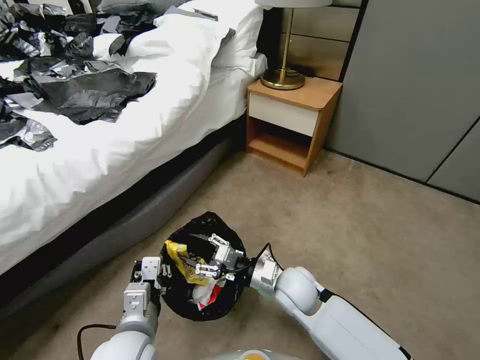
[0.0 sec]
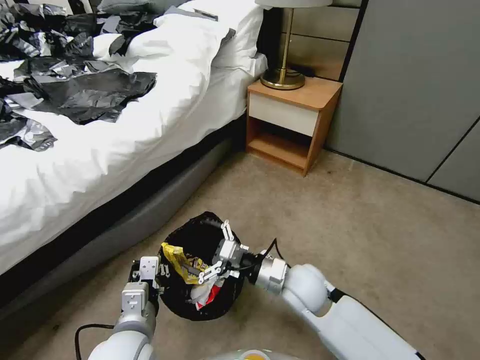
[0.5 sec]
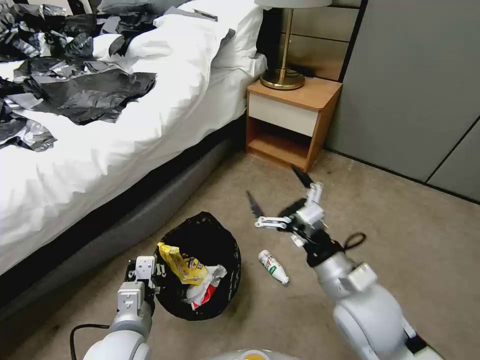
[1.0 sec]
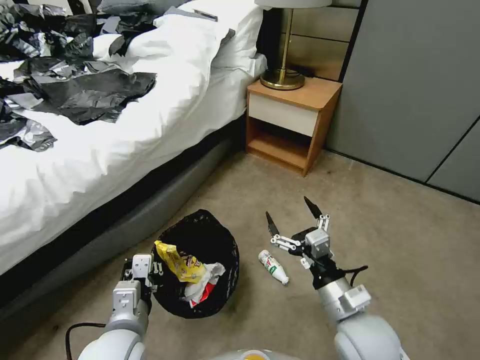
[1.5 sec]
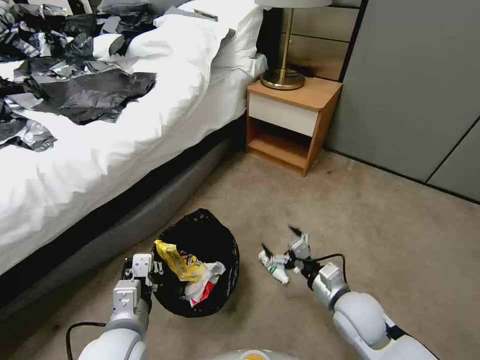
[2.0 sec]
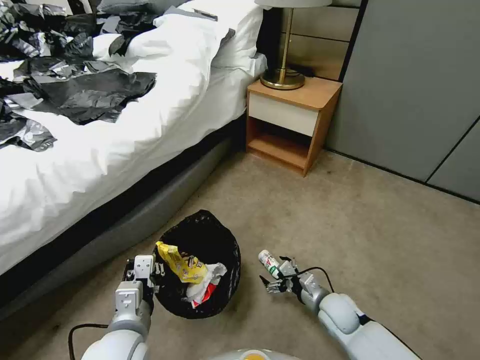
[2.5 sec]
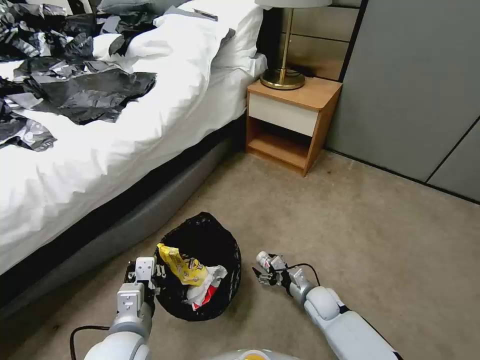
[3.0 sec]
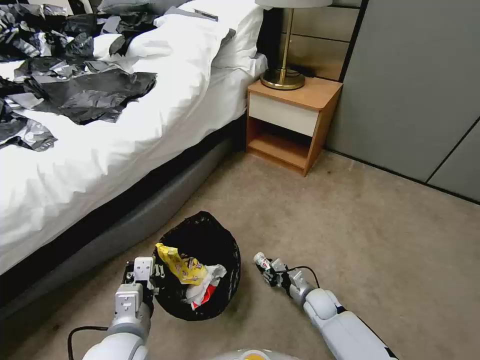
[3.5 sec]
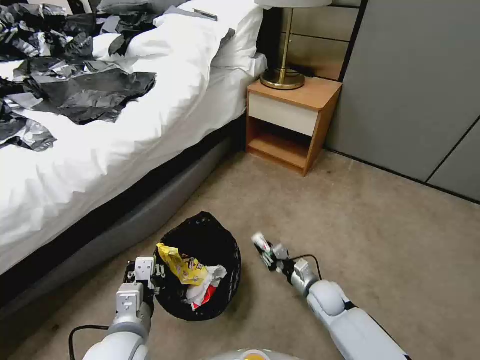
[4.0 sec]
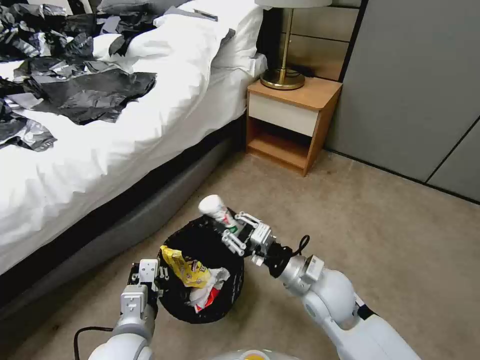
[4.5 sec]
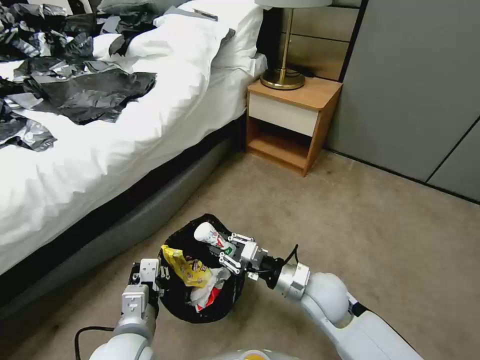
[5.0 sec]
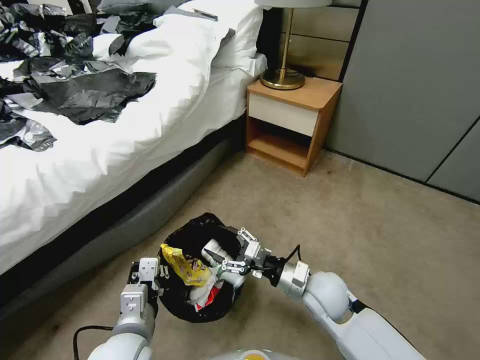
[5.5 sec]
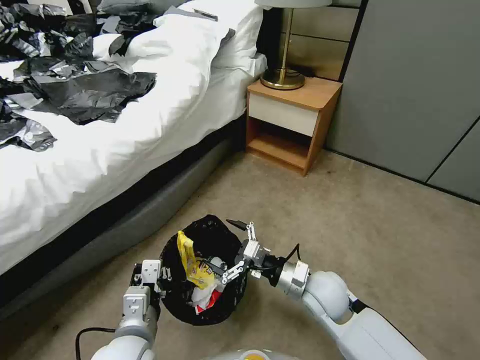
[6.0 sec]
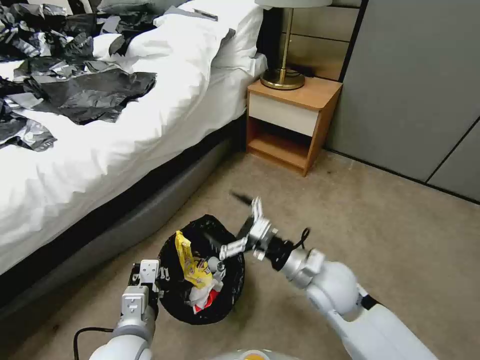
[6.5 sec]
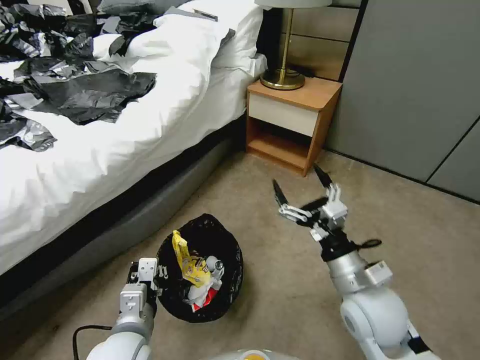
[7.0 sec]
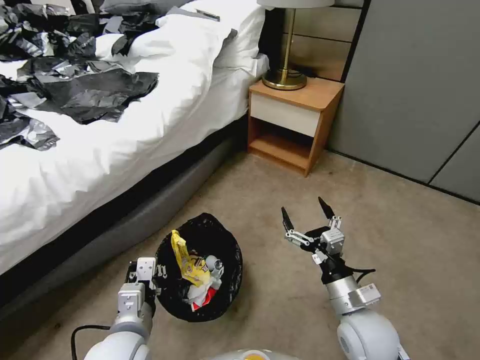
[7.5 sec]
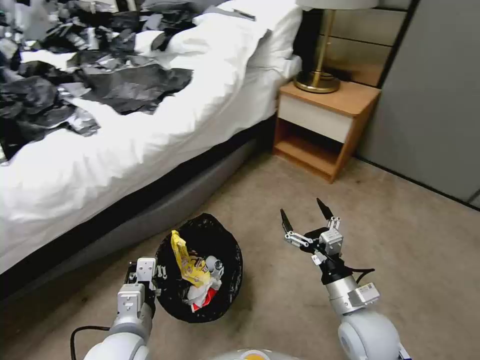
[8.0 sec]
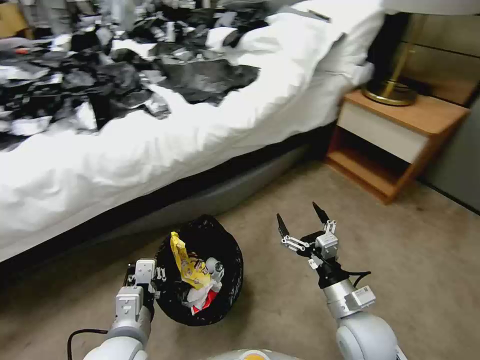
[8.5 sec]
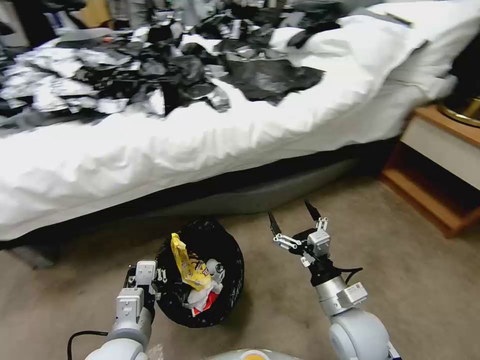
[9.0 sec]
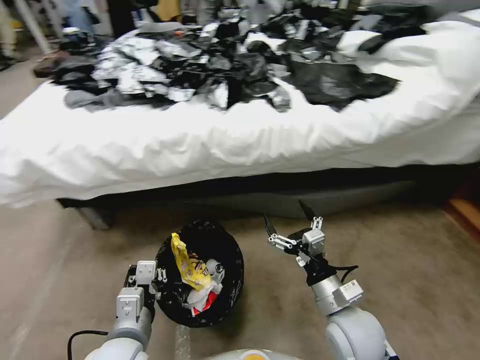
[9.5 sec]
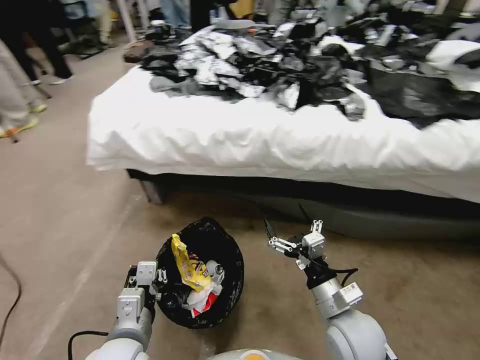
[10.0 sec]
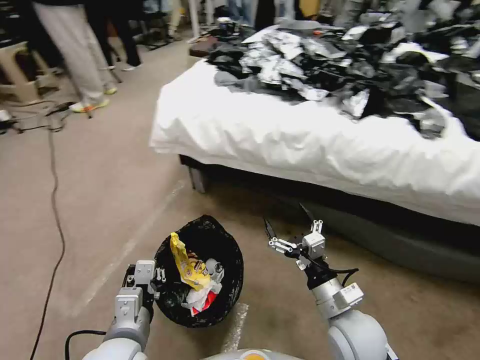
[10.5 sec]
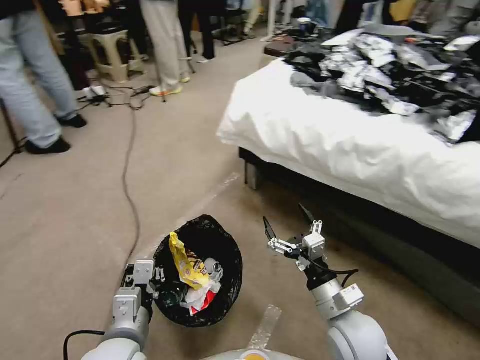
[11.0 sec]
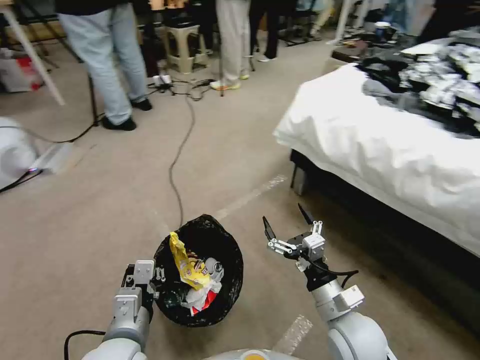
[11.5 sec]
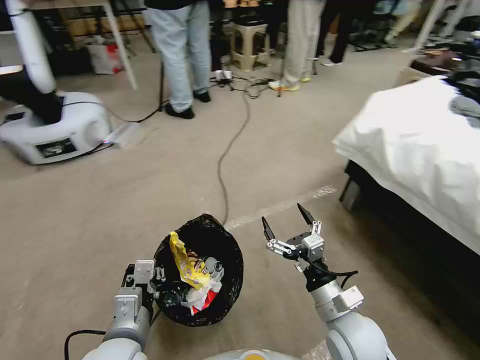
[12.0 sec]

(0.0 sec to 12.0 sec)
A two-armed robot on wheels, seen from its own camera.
Task of the whole recording: Pick up the trash bin, then pick up the garbage from the floor and place it into the trash bin.
0.0 sec - 2.0 sec: The right gripper heads to the right and backward, covering some 15 cm, travels upward and back again, roughly 15 cm each way, and opens.
2.0 sec - 4.0 sec: The right gripper goes approximately 15 cm downward and forward, and closes up.
4.0 sec - 6.0 sec: The right gripper shifts about 15 cm upward, and opens up.
6.0 sec - 8.0 sec: The right gripper moves backward and to the right, roughly 10 cm, and reaches approximately 10 cm upward, then returns.

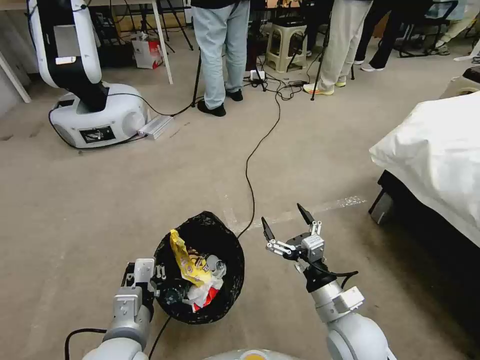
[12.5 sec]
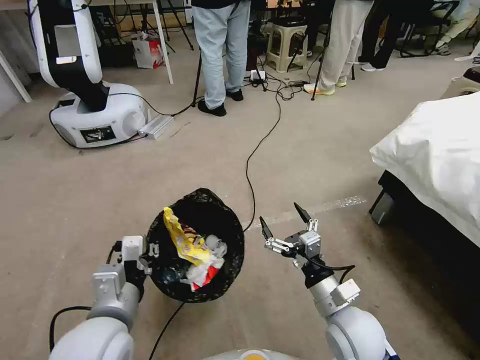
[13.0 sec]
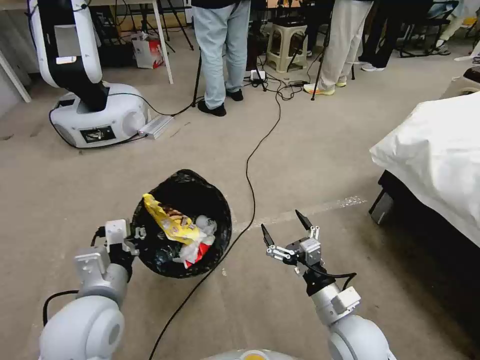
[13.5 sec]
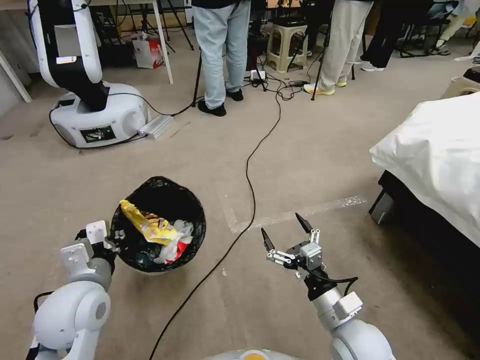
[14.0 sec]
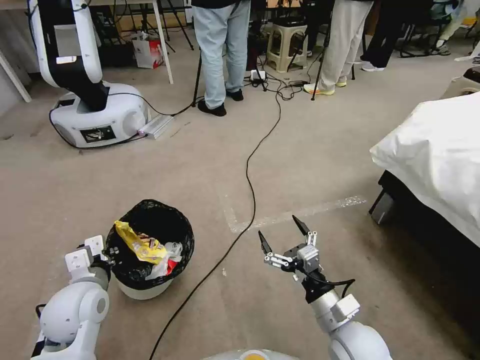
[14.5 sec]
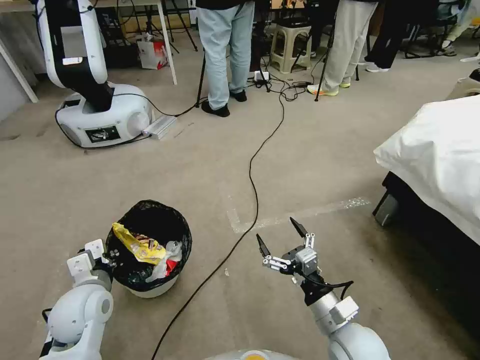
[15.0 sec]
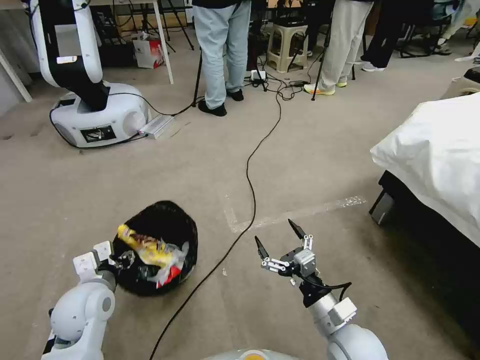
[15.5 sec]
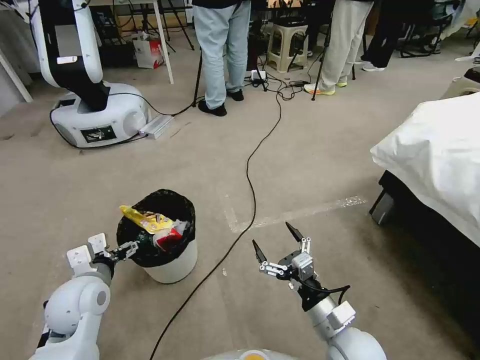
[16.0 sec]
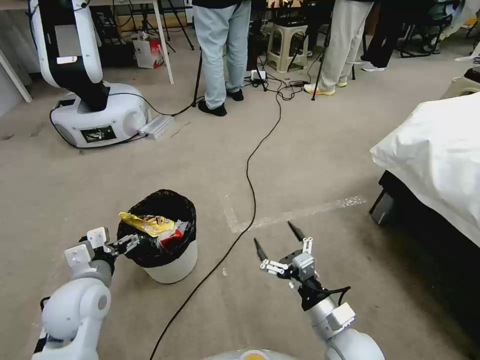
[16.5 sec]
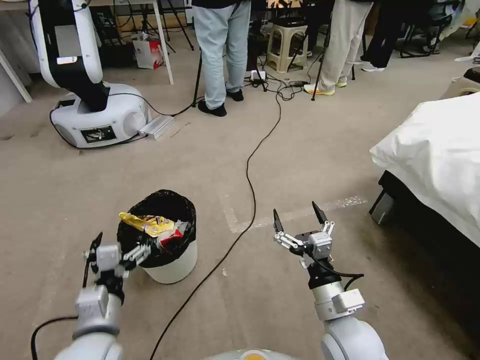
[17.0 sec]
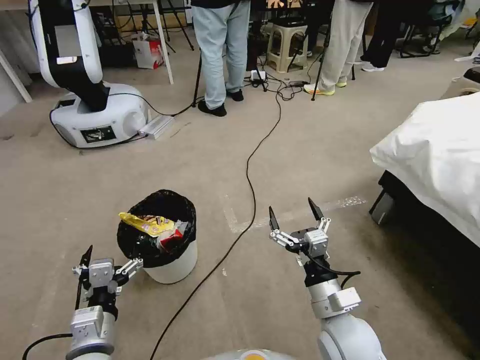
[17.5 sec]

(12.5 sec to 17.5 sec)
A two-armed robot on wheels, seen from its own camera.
Task of the whole recording: Pick up the trash bin, then pick up the garbage from the floor and place it into the trash bin.
12.5 sec - 15.0 sec: The left gripper goes approximately 15 cm to the left and forward.
15.0 sec - 17.5 sec: The left gripper shifts some 10 cm backward and to the right, and opens up.
